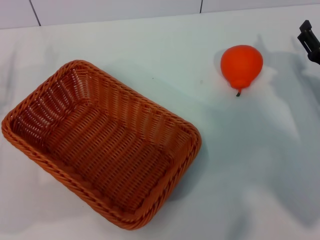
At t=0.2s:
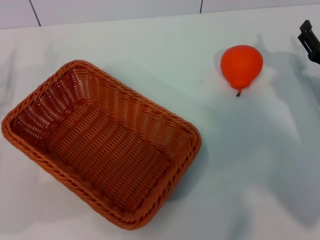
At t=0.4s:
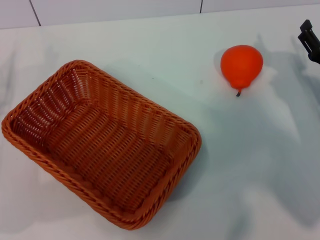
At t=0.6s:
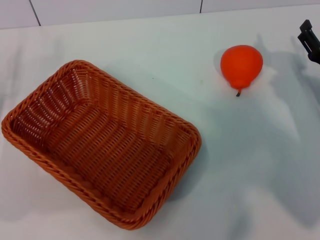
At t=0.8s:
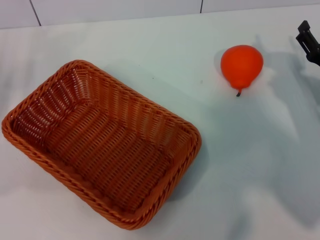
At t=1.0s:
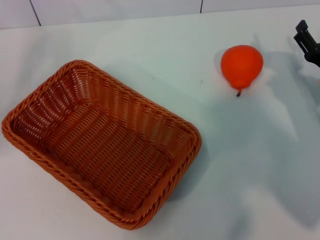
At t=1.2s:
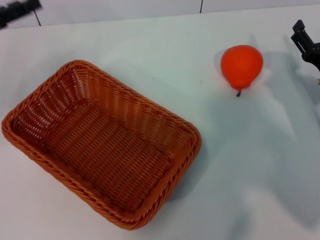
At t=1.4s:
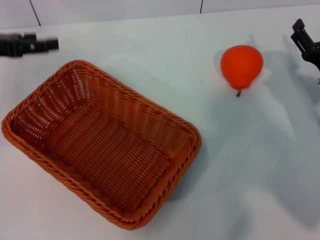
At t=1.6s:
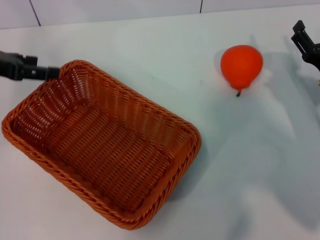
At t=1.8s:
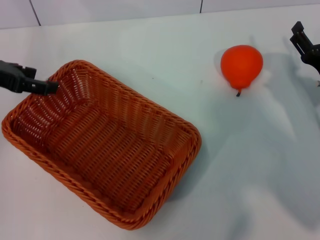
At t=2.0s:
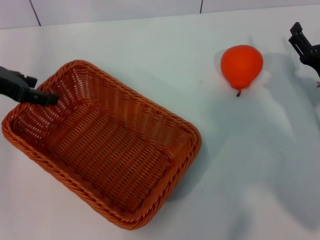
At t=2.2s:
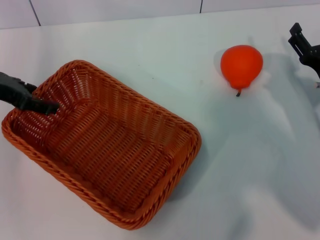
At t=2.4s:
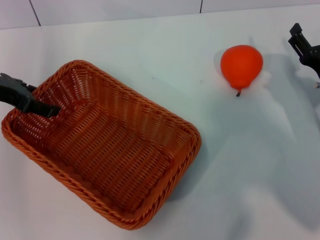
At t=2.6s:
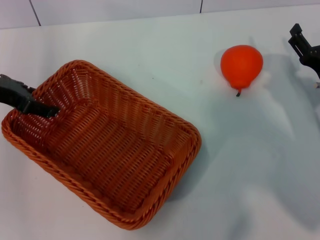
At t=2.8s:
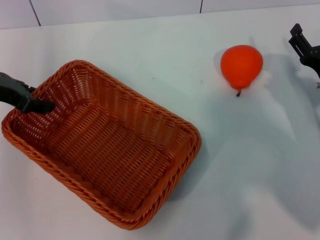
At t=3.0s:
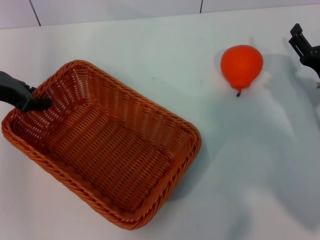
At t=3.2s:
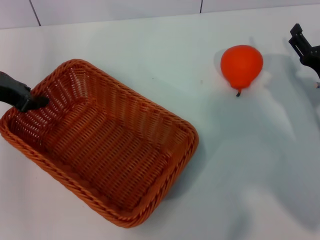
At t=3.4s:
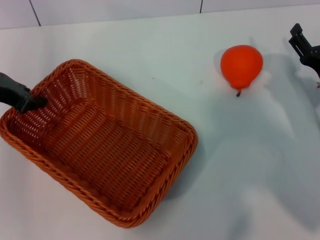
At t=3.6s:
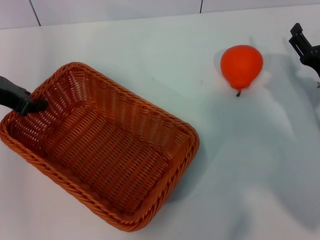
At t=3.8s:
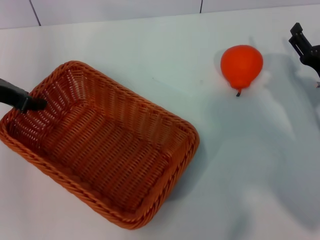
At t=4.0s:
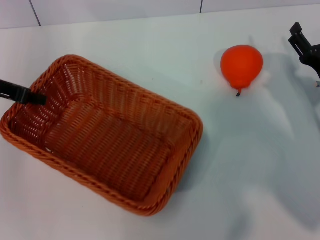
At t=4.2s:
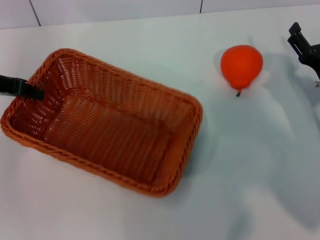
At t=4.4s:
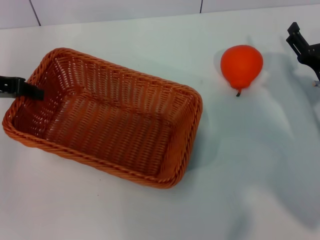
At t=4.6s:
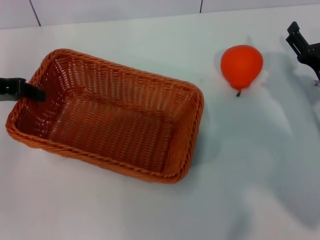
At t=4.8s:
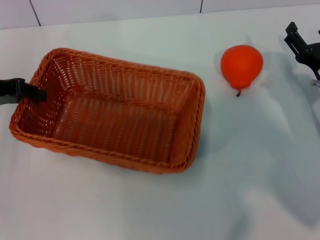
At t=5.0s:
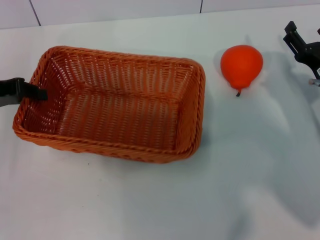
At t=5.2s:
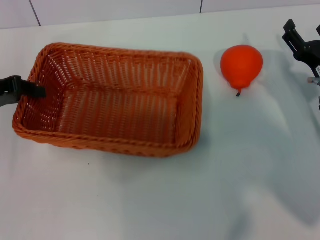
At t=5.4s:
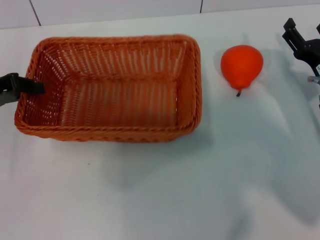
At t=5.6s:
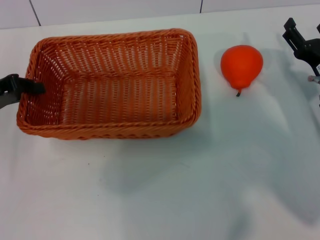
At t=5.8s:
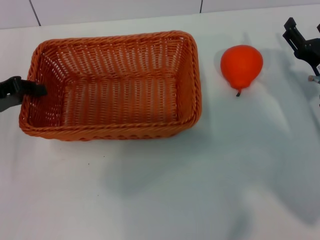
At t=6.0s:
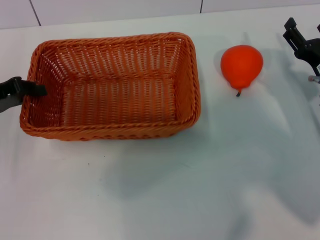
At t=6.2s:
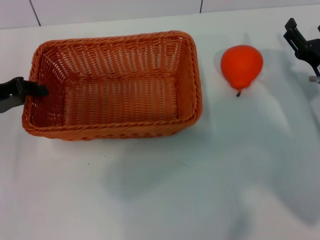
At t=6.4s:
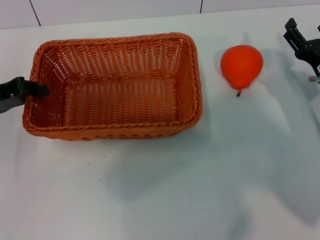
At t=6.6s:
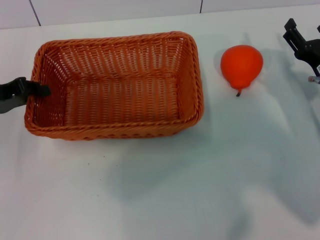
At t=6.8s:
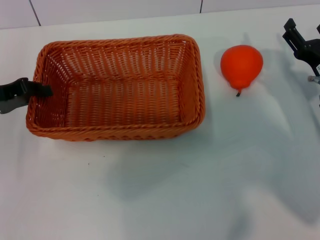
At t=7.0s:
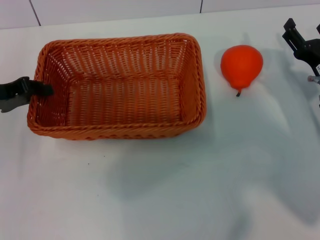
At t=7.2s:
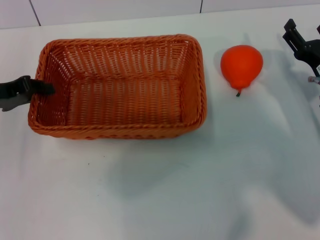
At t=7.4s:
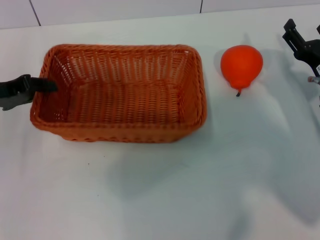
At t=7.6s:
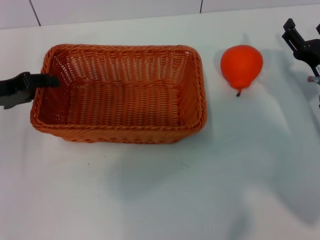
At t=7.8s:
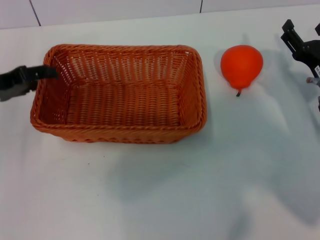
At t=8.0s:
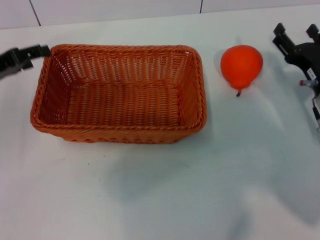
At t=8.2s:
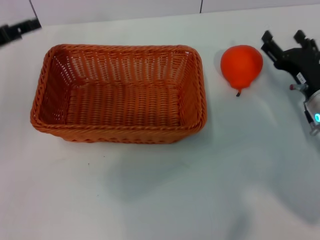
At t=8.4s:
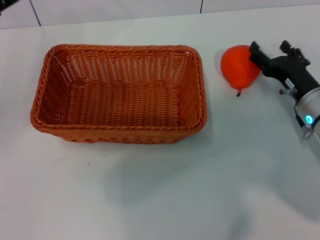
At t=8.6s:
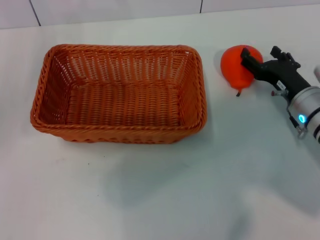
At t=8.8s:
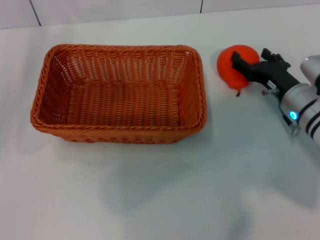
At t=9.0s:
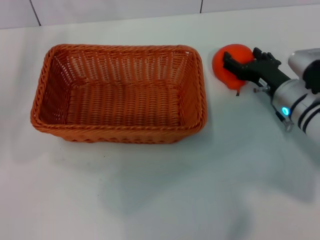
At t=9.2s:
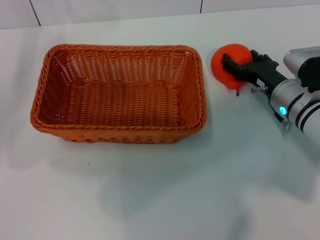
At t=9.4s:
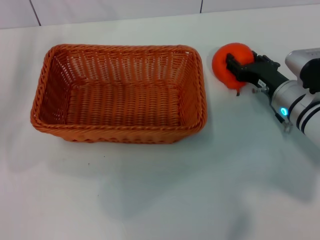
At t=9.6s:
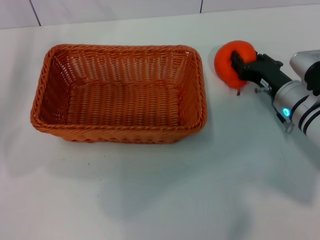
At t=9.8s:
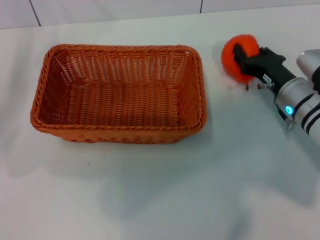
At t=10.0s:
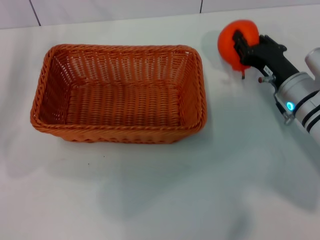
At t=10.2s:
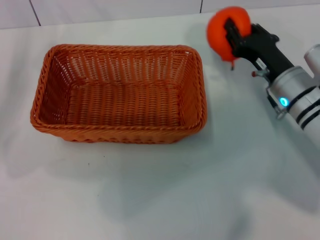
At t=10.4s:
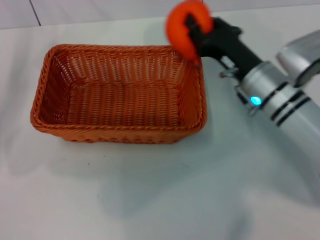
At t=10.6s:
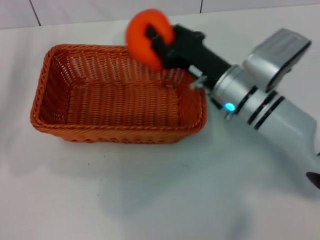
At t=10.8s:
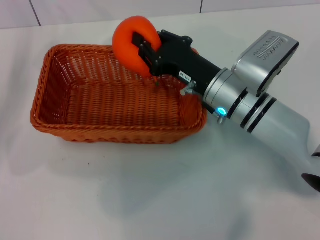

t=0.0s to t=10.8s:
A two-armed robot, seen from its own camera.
Task of the whole recording: the left gripper pick up the yellow basket and place it horizontally in the middle of the table, the right gripper pick up the orange and place it into the yellow basket.
Step, t=0.0s to t=4.2s: Pick up the light basket with the left gripper.
Step, t=4.4s to t=7.8s: Place the light basket in the center of view with the left gripper.
Step, t=8.2s to t=9.8s: Pick up the orange with the right gripper.
t=0.0s to t=1.6s: The left gripper moves upward and forward, approximately 15 cm.
t=1.6s to t=3.0s: The left gripper closes its fingers.
t=3.0s to t=4.6s: The left gripper closes its fingers.
t=4.6s to t=6.2s: The left gripper shifts by about 5 cm.
t=6.2s to t=7.8s: The left gripper opens up.
t=7.8s to t=9.2s: The right gripper is displaced to the left by approximately 5 cm. Meanwhile the left gripper opens its fingers.
t=9.2s to t=10.8s: The right gripper travels to the left and upward by approximately 10 cm, and closes up.

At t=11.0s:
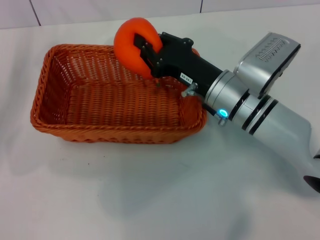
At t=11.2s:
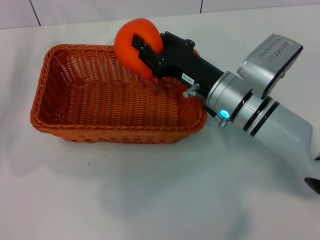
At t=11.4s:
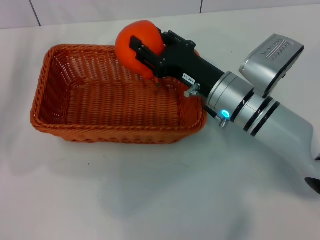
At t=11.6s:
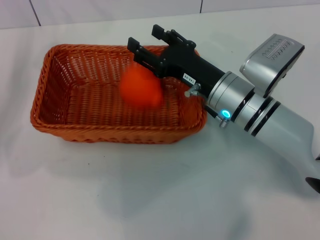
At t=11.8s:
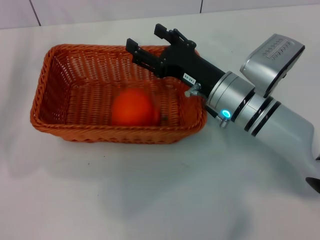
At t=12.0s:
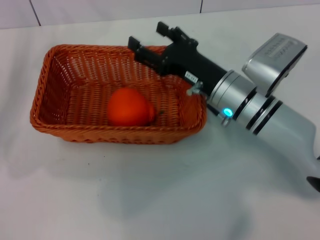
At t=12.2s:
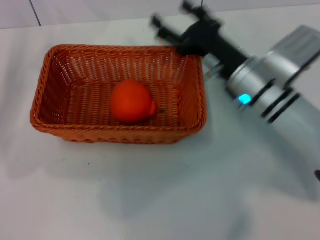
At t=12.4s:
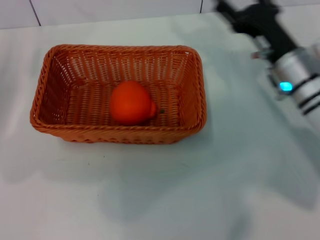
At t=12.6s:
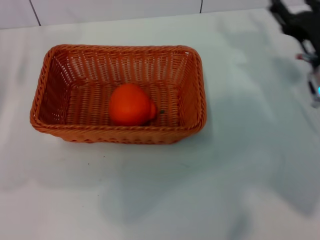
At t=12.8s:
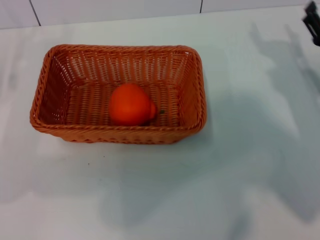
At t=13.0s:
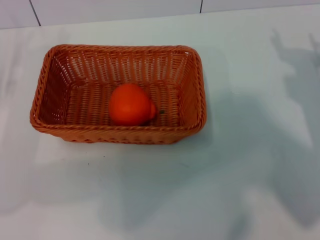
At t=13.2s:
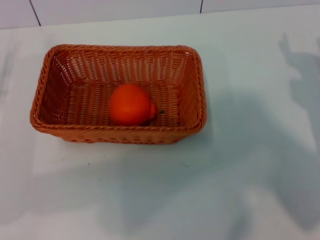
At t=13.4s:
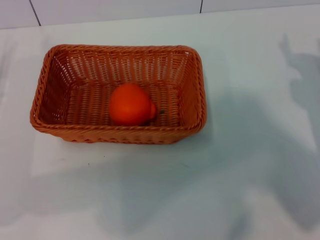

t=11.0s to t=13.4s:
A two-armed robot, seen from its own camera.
Task of the whole recording: the left gripper pick up the yellow basket and place it horizontally in the middle of the table, the right gripper pick up the orange and place it into the yellow basket.
t=11.0s to t=12.2s: The right gripper opens its fingers.
t=12.2s to t=13.4s: The right gripper goes some 15 cm to the right. The left gripper moves about 5 cm.
